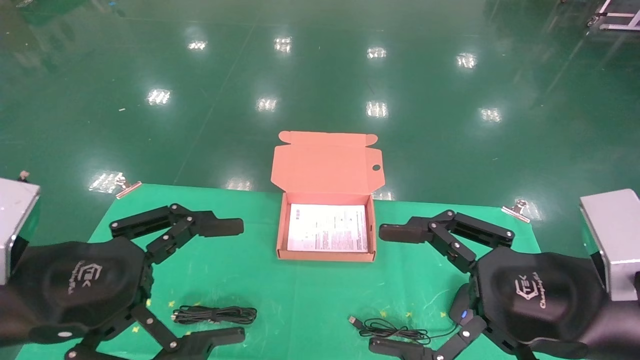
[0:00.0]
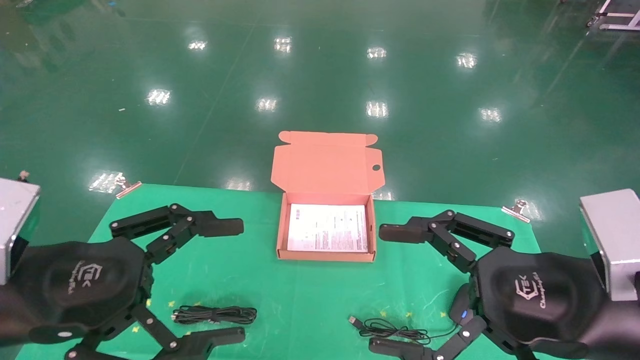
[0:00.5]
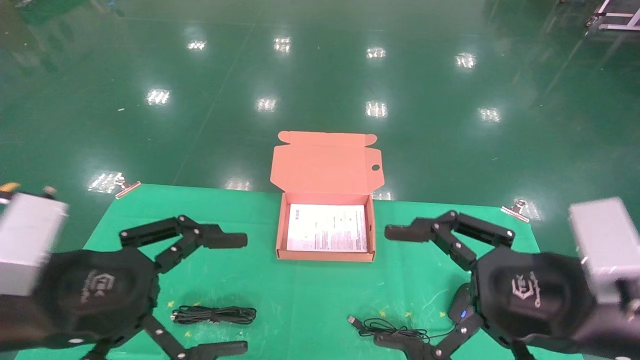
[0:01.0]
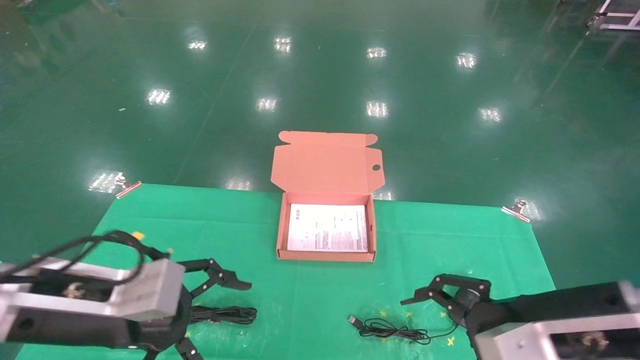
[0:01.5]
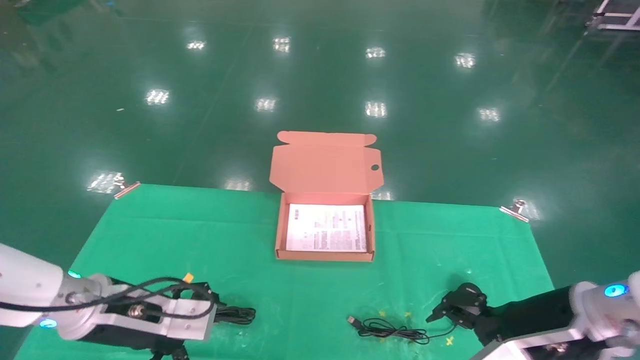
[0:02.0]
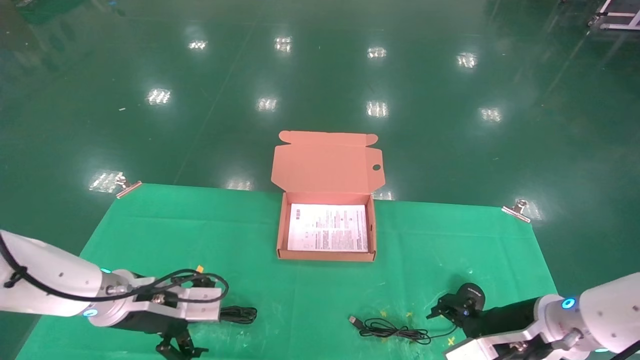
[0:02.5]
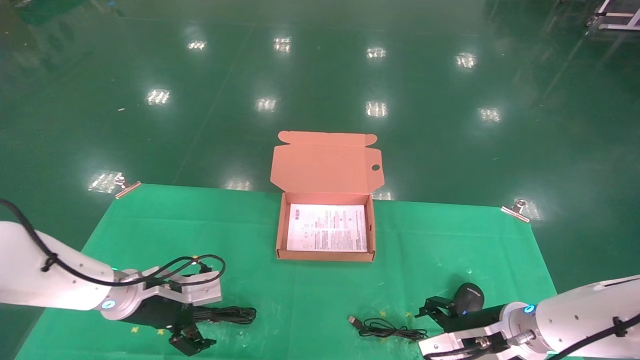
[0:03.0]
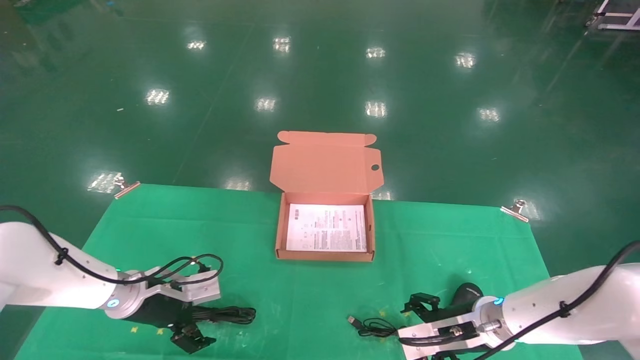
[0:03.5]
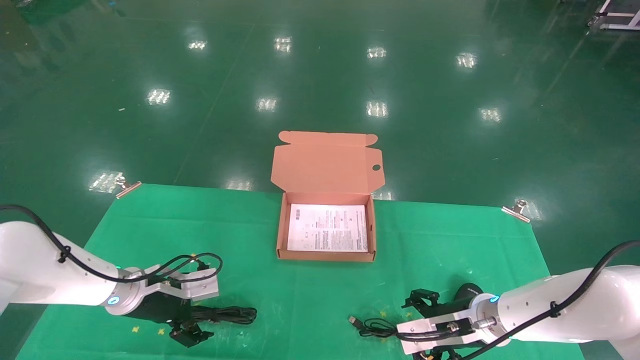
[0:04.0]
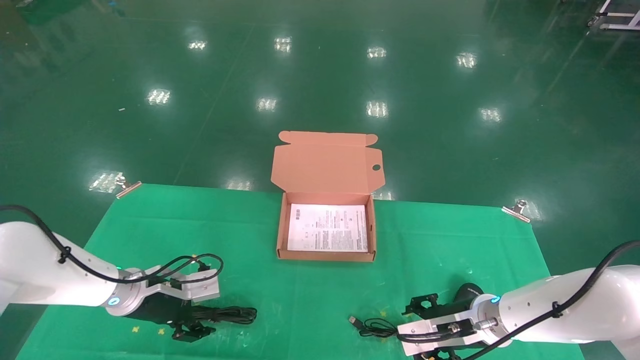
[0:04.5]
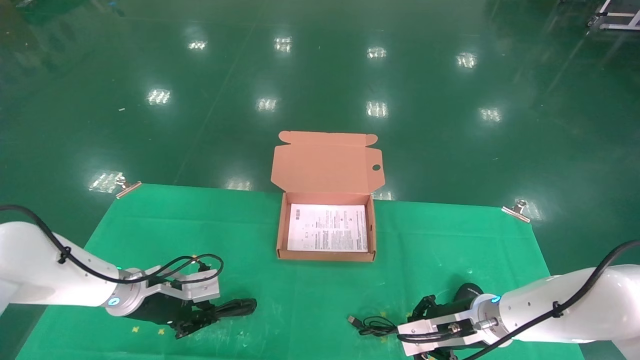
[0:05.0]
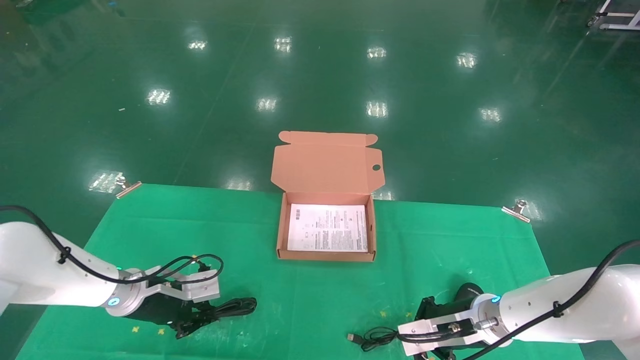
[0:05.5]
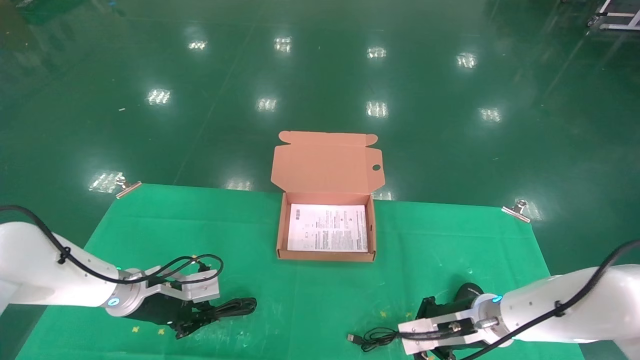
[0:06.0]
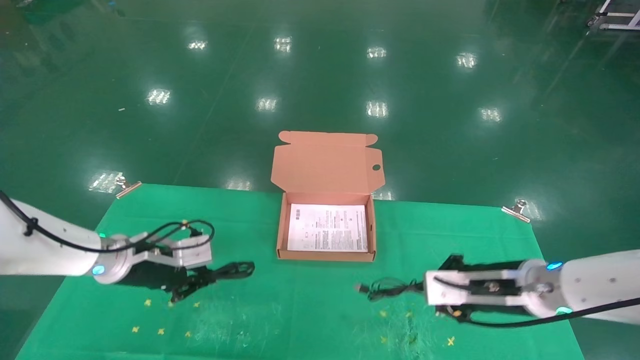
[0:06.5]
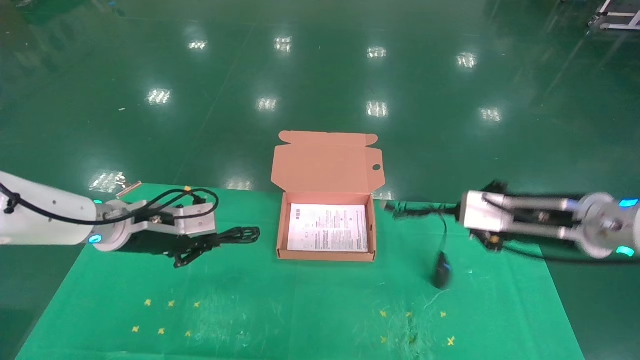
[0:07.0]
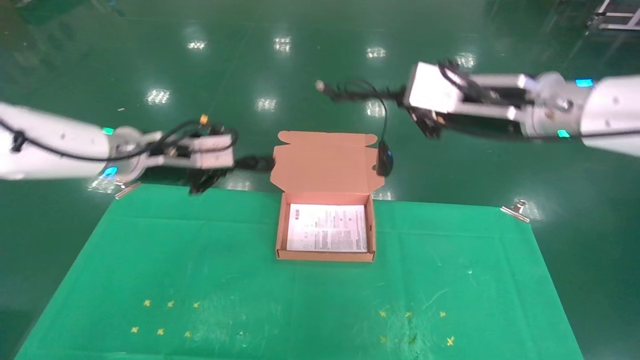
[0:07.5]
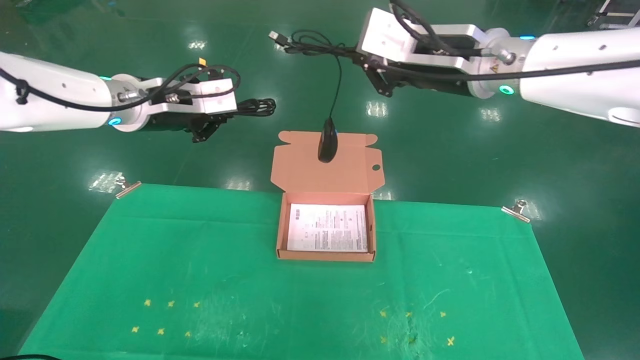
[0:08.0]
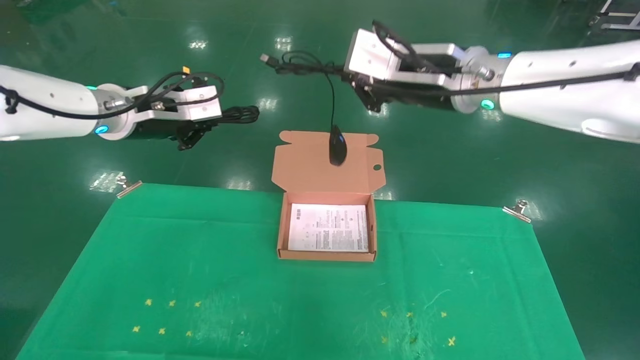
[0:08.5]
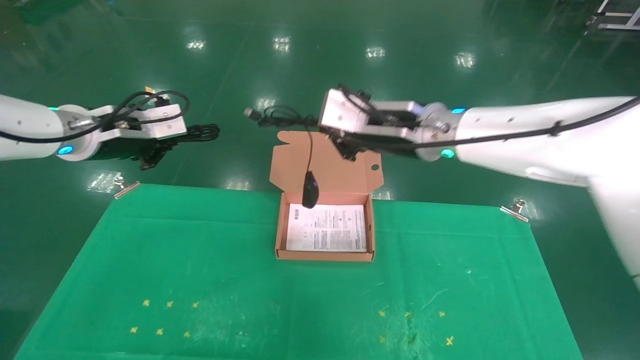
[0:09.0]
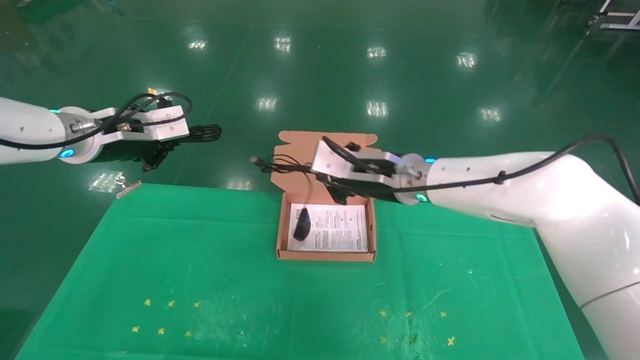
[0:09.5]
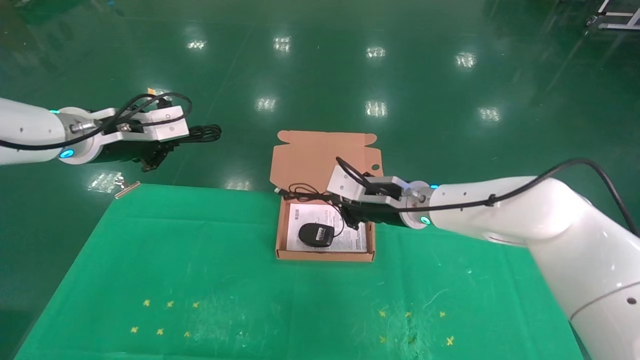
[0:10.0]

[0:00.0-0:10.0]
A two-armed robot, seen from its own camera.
Task of the whole recording: grasp data cable left put into box grasp mouse right put into box.
Step, 0:01.5 to 0:06.5: Grab and pick up both the mouse and power cord from the accessory packaging area at the same time.
0:00.0 to 0:02.0: The two grippers go approximately 15 cm forward and downward.
0:02.0 to 0:04.0: Both grippers travel together forward and downward, some 15 cm.
0:04.0 to 0:06.0: The left gripper closes up. Meanwhile the right gripper closes.
0:06.0 to 0:08.0: The two grippers go about 30 cm upward.
0:08.0 to 0:10.0: The left gripper travels to the left by about 5 cm, while the right gripper travels downward and forward by approximately 20 cm.

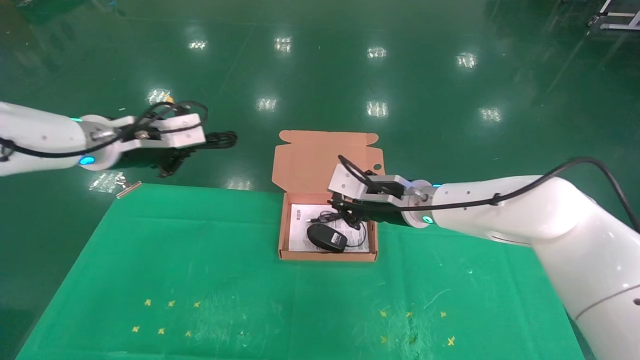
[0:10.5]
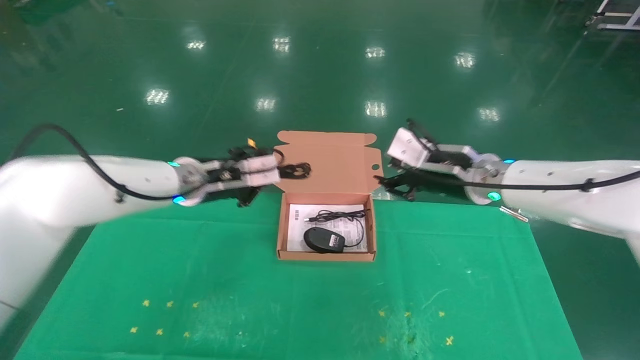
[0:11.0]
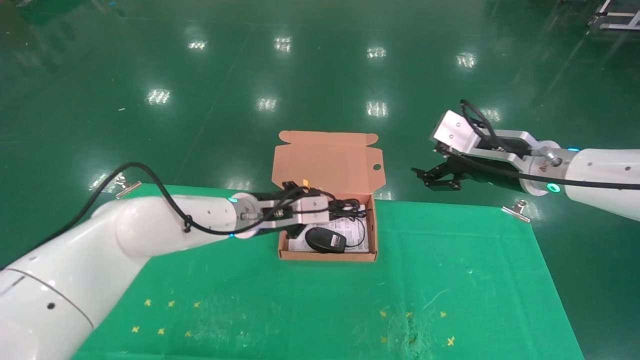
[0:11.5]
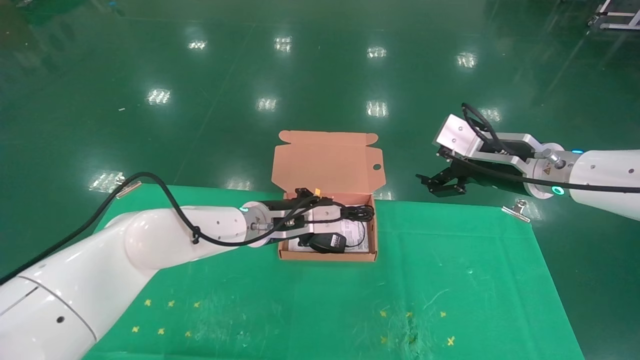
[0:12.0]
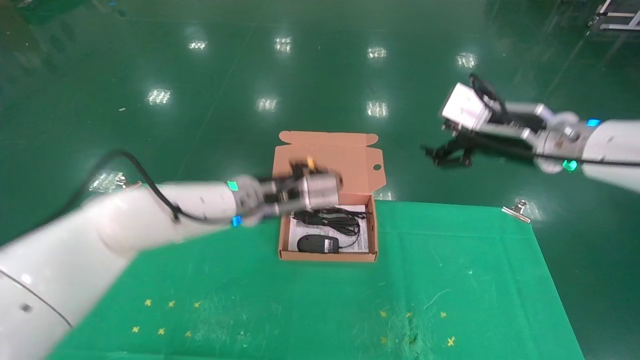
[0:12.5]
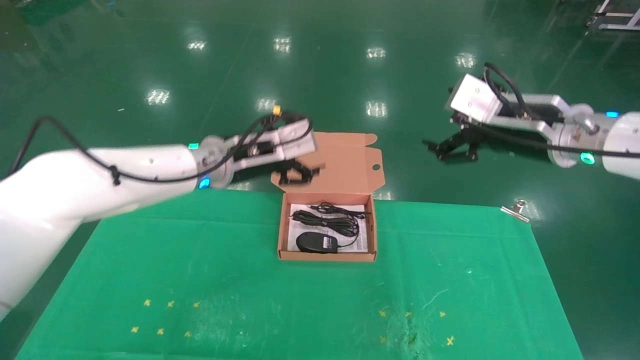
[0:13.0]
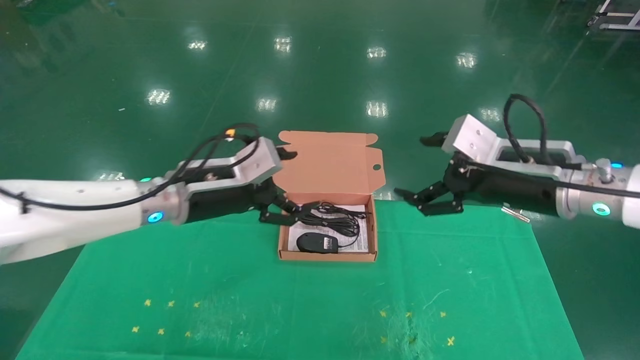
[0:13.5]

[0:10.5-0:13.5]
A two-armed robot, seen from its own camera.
Task of the whole recording: grasp data cable left put into box grasp mouse right put into box.
Step, 0:10.5 to 0:12.5: Place the mouse and power cord into the box.
0:10.5 to 0:12.0: The right gripper heads to the right, upward and backward, covering roughly 15 cm, and opens, while the left gripper is displaced to the right and downward by roughly 25 cm.
0:12.0 to 0:13.5: The left gripper moves to the left, backward and upward, about 15 cm, and opens; the right gripper goes some 5 cm backward.

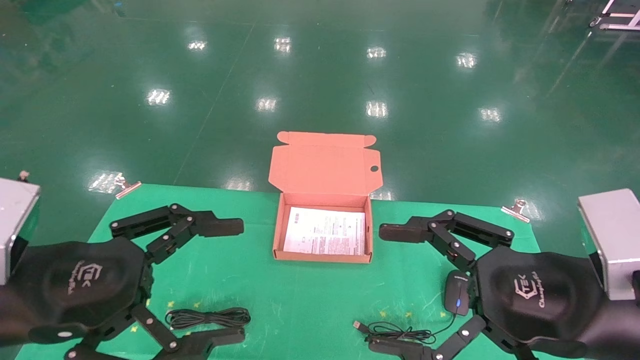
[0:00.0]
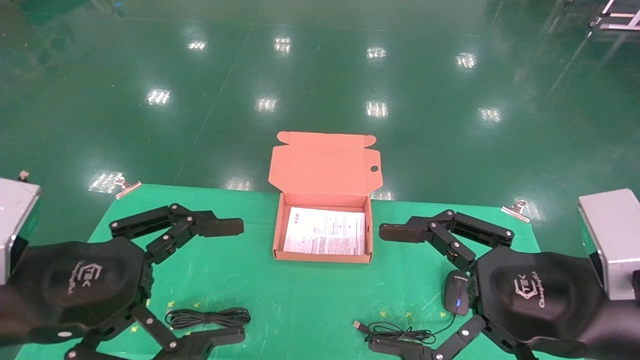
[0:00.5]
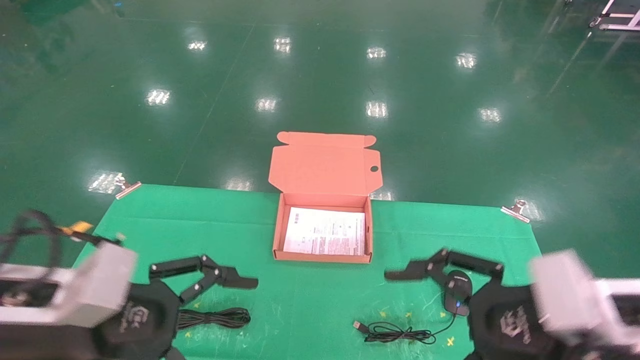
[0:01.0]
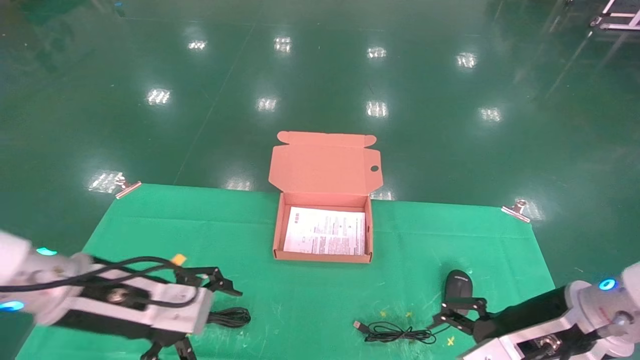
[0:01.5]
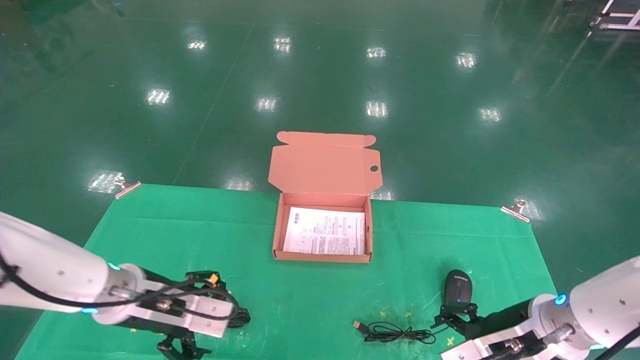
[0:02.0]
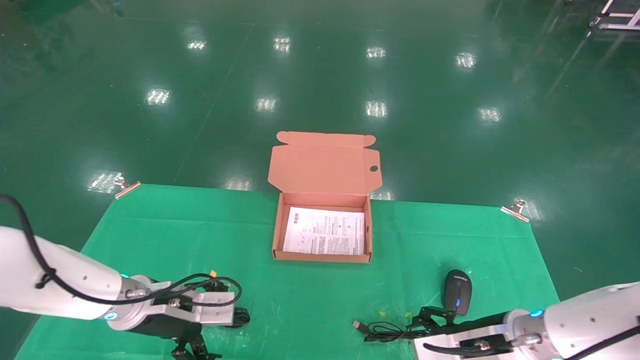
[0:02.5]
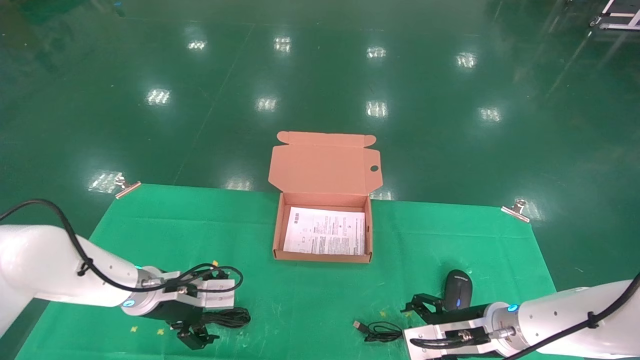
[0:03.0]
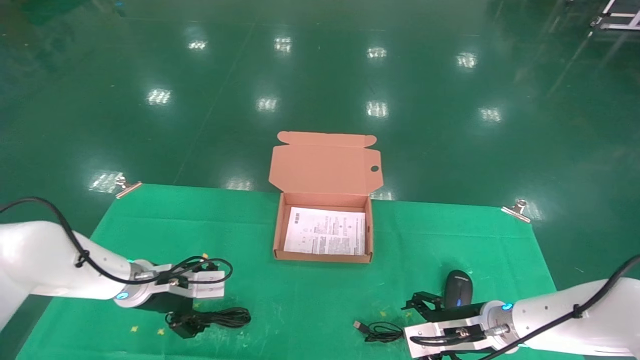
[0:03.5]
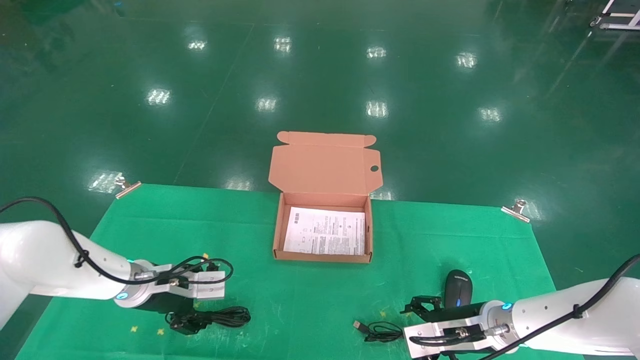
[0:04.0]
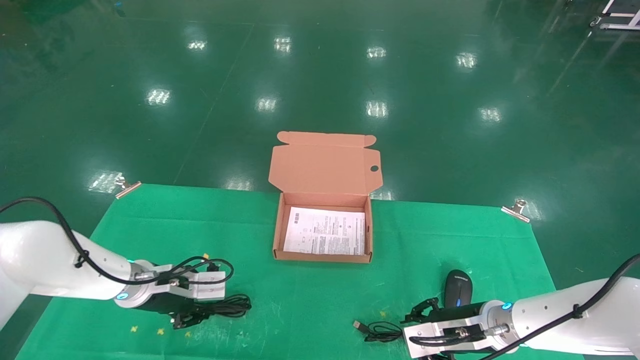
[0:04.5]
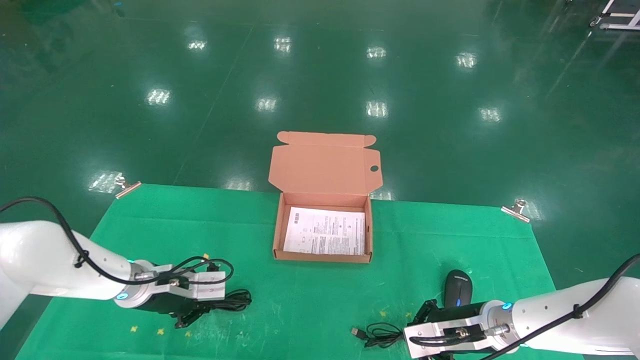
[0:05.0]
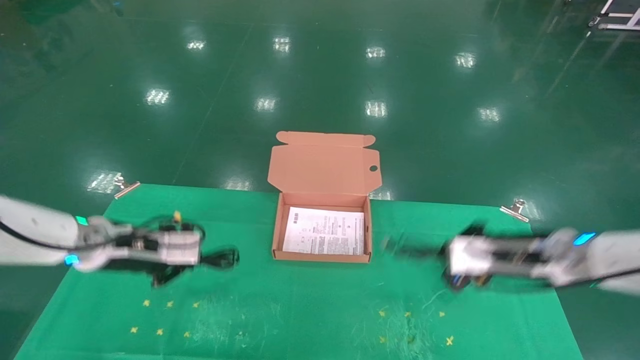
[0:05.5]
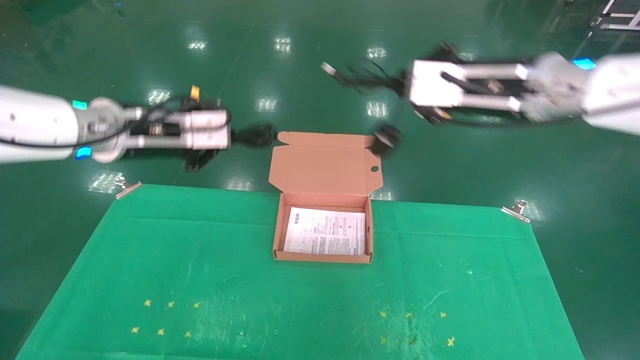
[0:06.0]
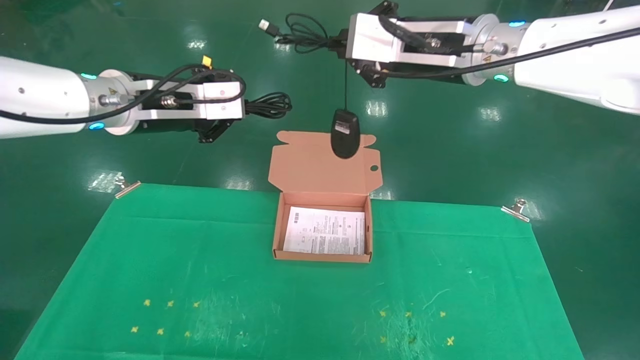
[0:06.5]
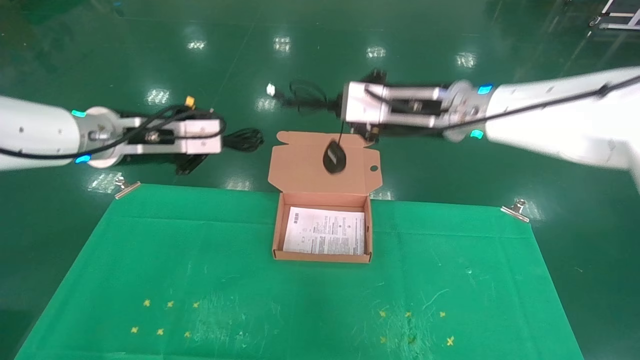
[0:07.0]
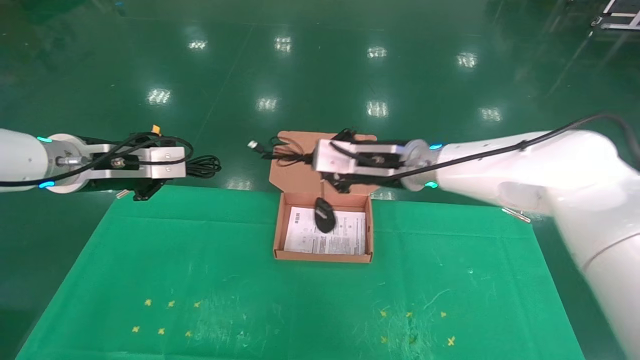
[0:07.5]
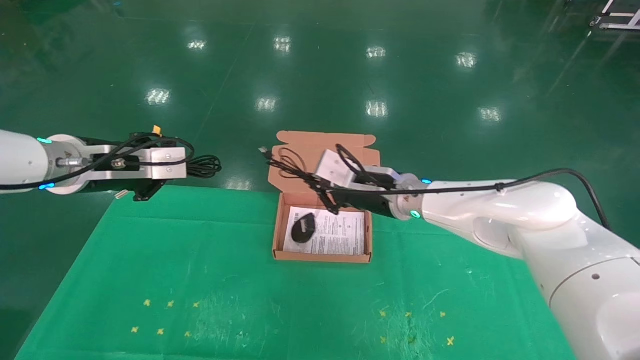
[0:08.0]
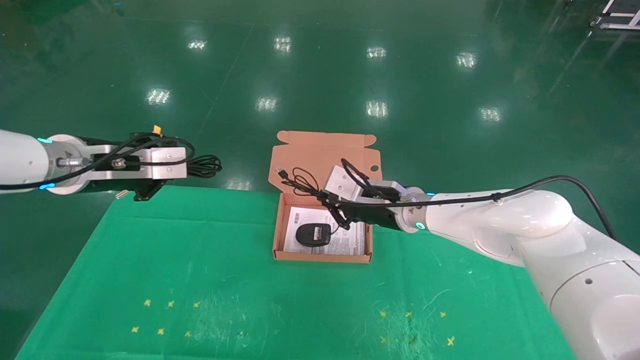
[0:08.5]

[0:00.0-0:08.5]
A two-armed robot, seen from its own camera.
Task of the whole recording: grasp data cable left put into box grasp mouse right put into box.
Step, 0:01.0 to 0:05.5: Grab and pick up both the mouse and power cord from the accessory packaging area at the same time.
0:00.0 to 0:02.0: Both grippers move forward and downward, approximately 15 cm.
0:02.0 to 0:04.0: The two grippers go about 10 cm forward and downward.
0:04.0 to 0:06.5: Both grippers move upward, approximately 35 cm. The left gripper closes. The right gripper closes up.
0:06.5 to 0:08.5: The left gripper moves downward and to the left, some 10 cm; the right gripper is displaced downward by roughly 25 cm.
